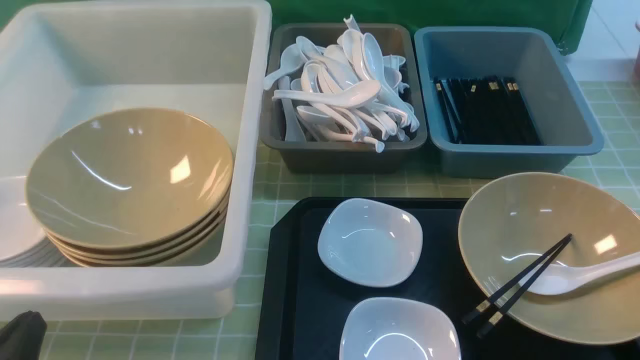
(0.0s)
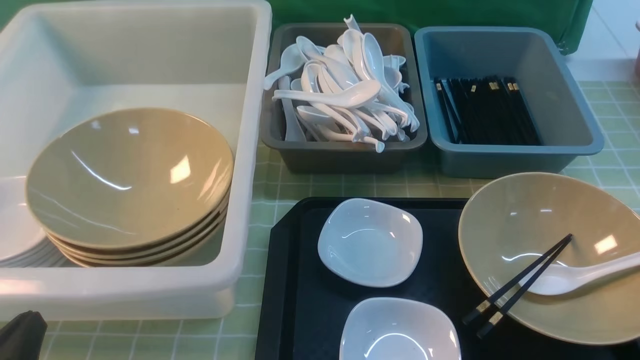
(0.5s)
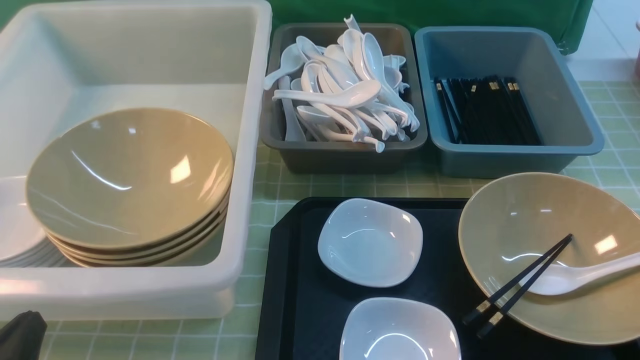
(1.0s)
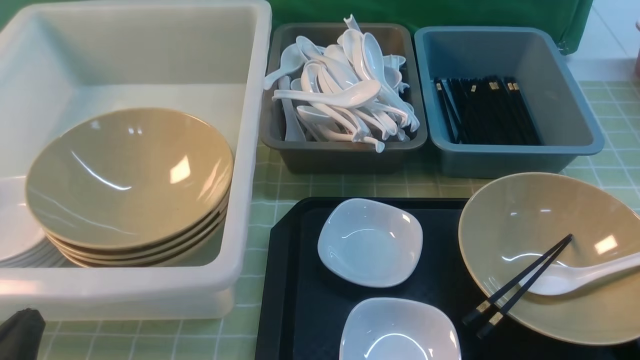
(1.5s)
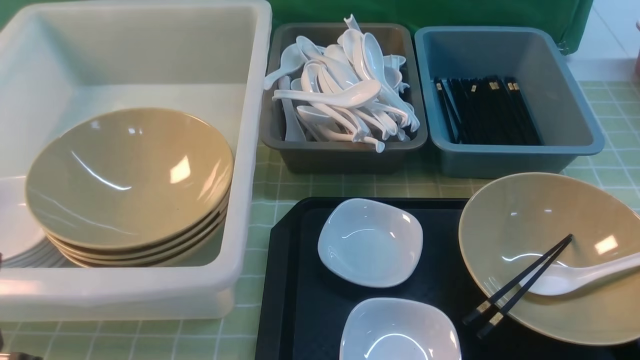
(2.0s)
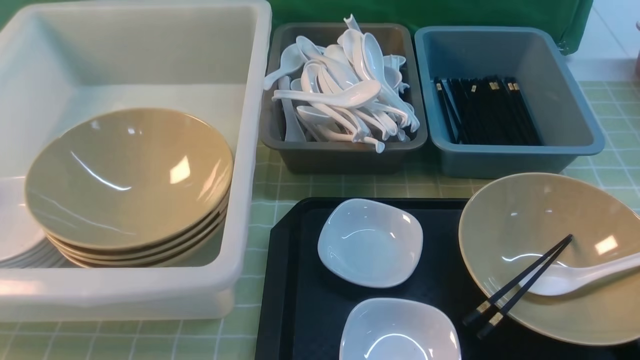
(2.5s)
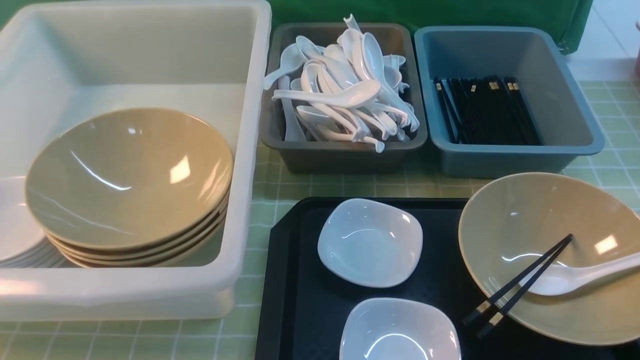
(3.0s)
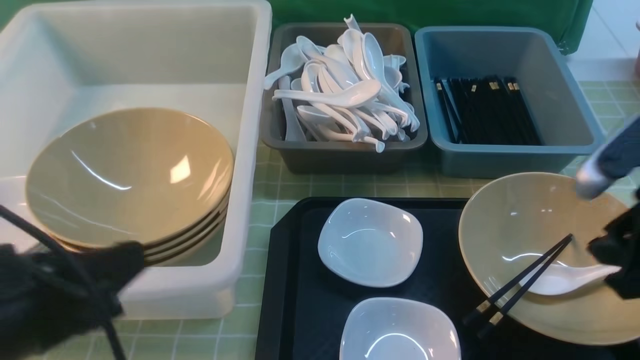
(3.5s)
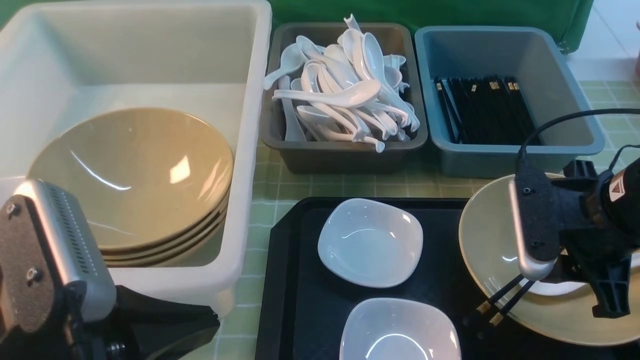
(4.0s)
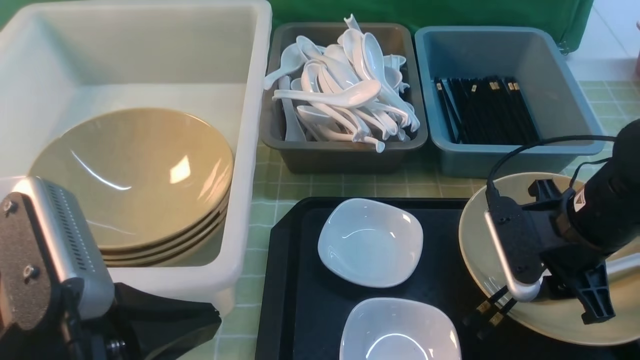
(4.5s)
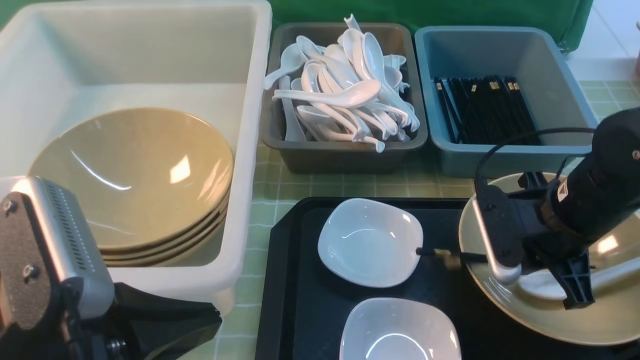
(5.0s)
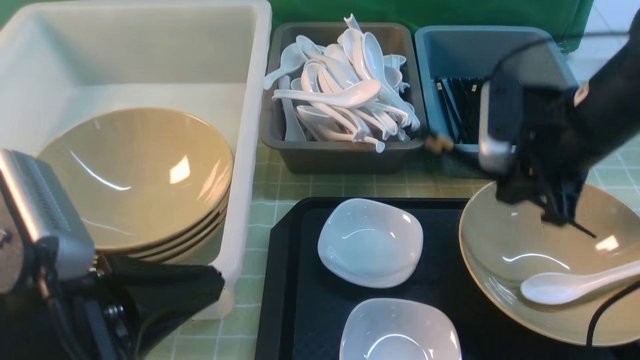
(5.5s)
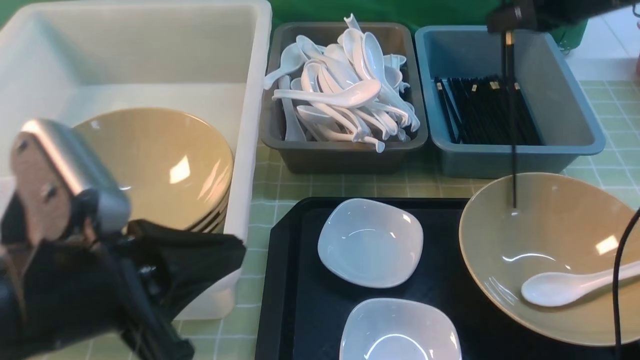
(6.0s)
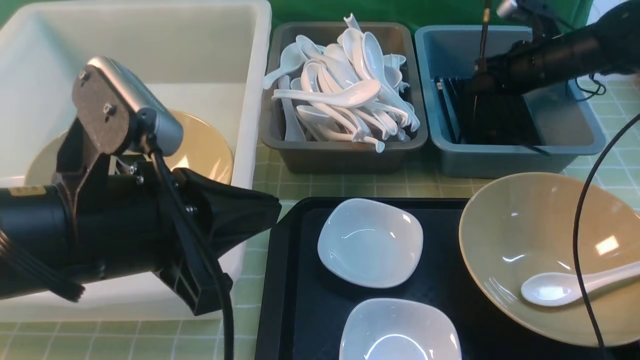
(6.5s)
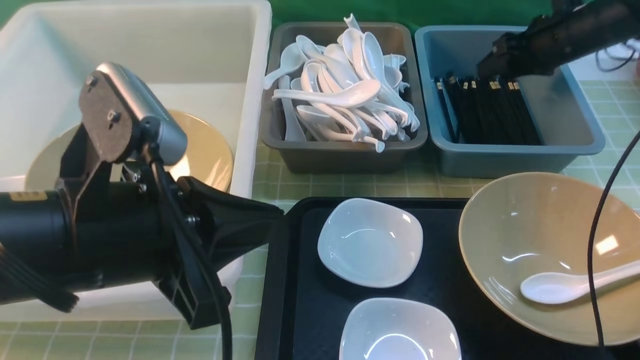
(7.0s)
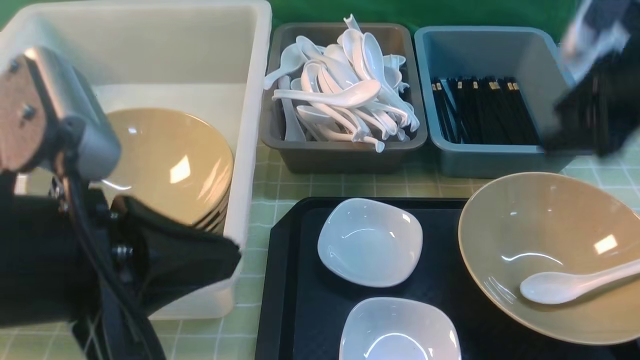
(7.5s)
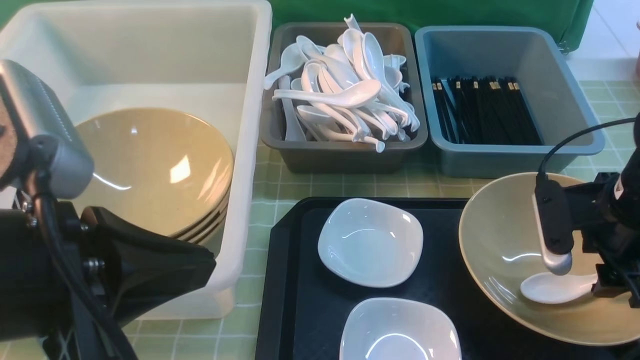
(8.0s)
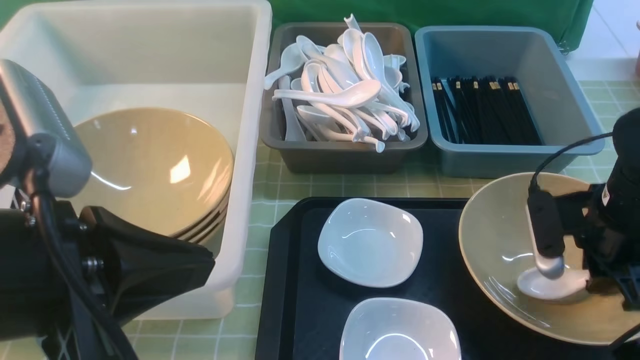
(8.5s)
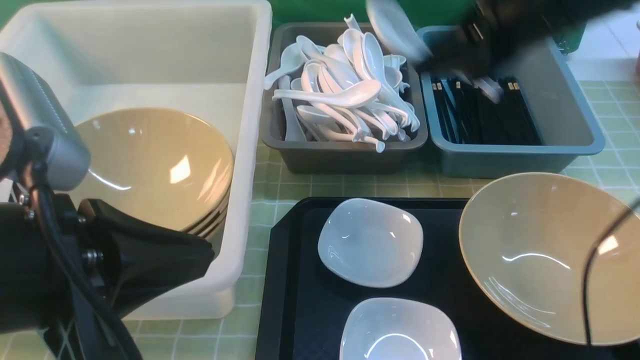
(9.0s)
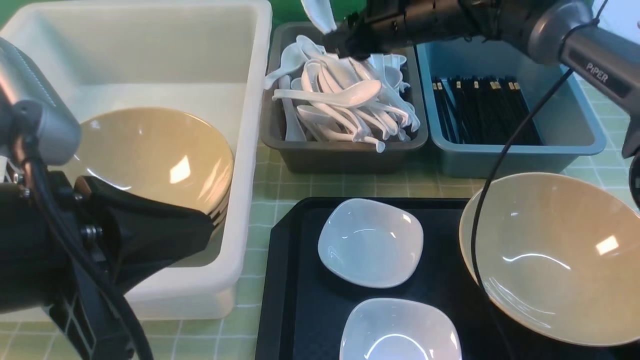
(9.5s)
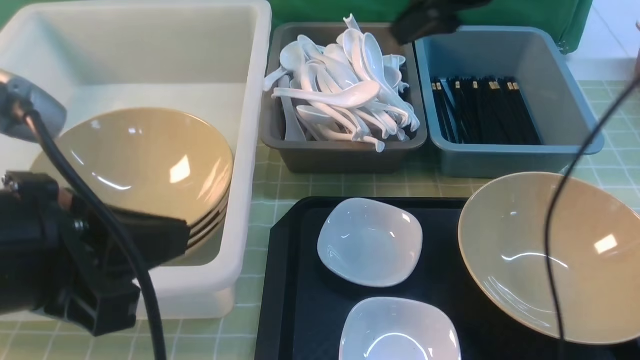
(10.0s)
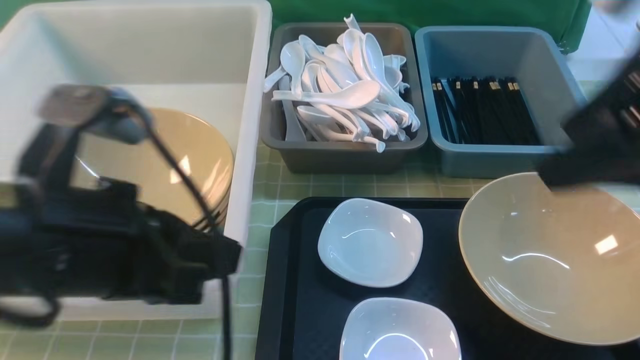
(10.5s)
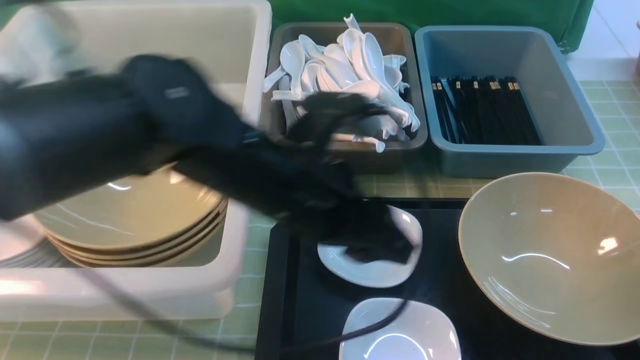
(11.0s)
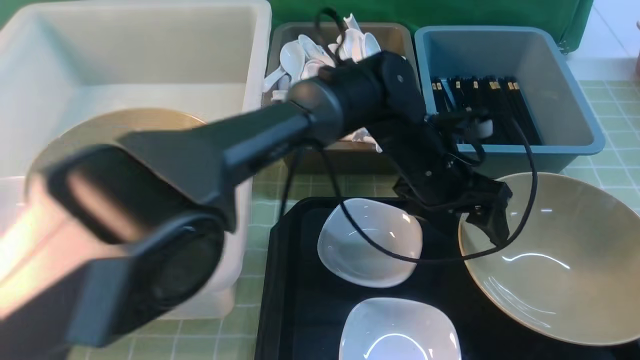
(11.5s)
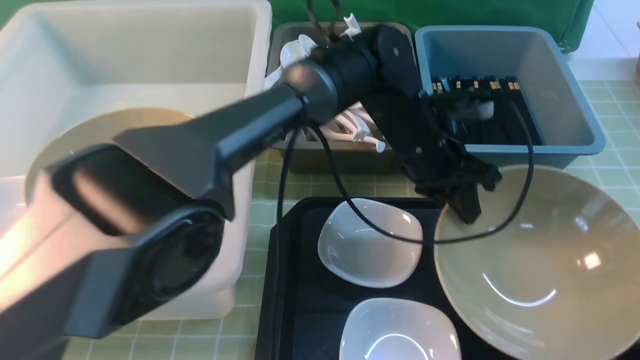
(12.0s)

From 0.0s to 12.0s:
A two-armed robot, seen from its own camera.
Task of the whole recording: on green table put chopsticks spoon bowls plates into blue grey white boxes.
Step, from 0.0s to 5.5s: use the right arm to grab the chopsticks.
Step, from 6.0s to 7.0s: use the right arm to put the chopsticks into the small storage box on the right.
Step, from 7.5s to 8.5s: use the right arm to grab the soup spoon in the middle.
Step, from 9.0s to 10.0s: use the right arm to put the soup spoon into the small storage box in the middle.
Step, from 10.5s to 12.0s: use the left arm to grab the yellow noodle bowl on the left.
From 2.0s to 4.0s: The left gripper goes approximately 10 cm to the right and upward. Meanwhile the right gripper goes about 20 cm forward and to the left.
From 4.0s to 6.0s: The right gripper shifts some 20 cm forward and upward, and closes.
From 6.0s to 8.0s: The left gripper ends up approximately 5 cm from where it was, while the right gripper heads backward and downward, covering roughly 20 cm, and opens.
From 8.0s to 10.0s: The right gripper heads upward, forward and to the left, covering some 25 cm, and closes, then opens again.
From 10.0s to 12.0s: The right gripper goes roughly 35 cm backward, and closes; the left gripper heads to the right, forward and downward, covering roughly 40 cm, and opens, then closes again.

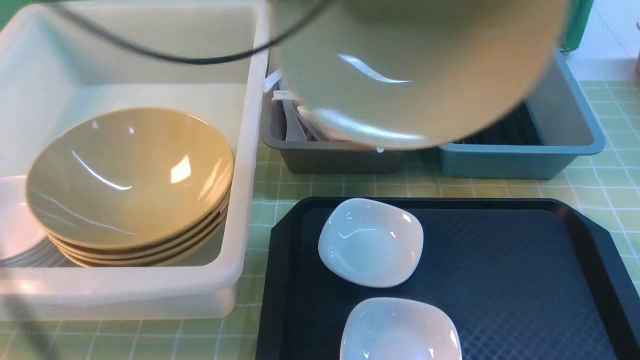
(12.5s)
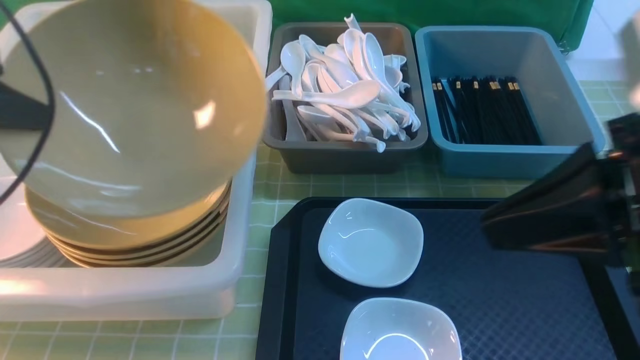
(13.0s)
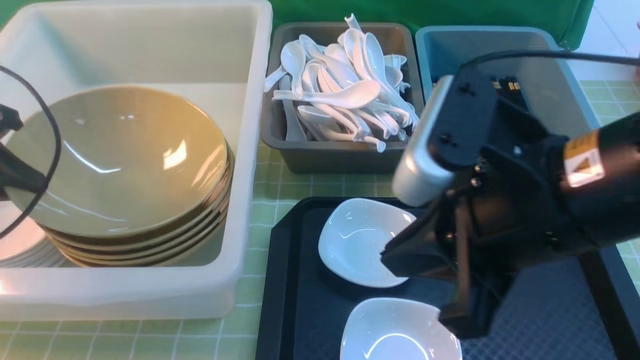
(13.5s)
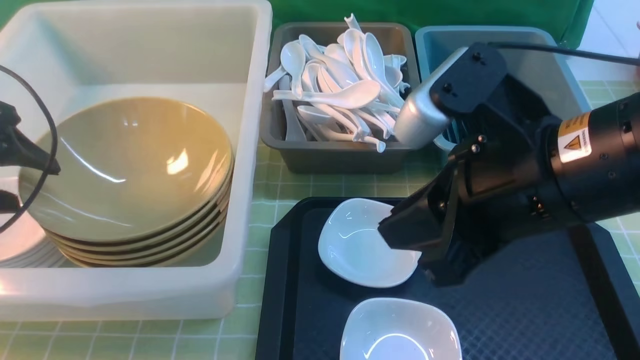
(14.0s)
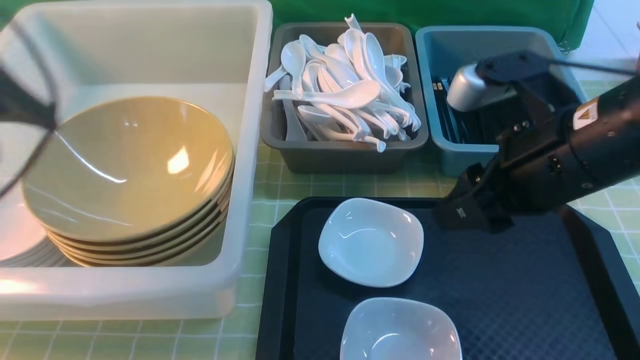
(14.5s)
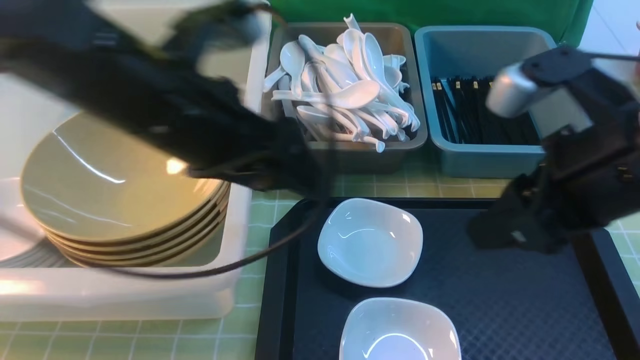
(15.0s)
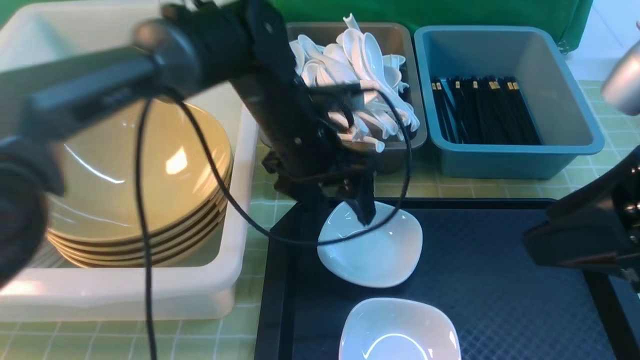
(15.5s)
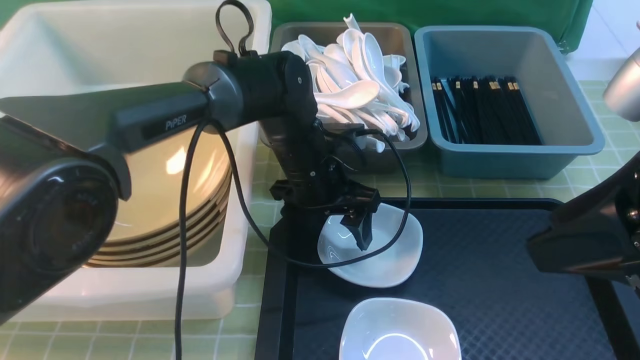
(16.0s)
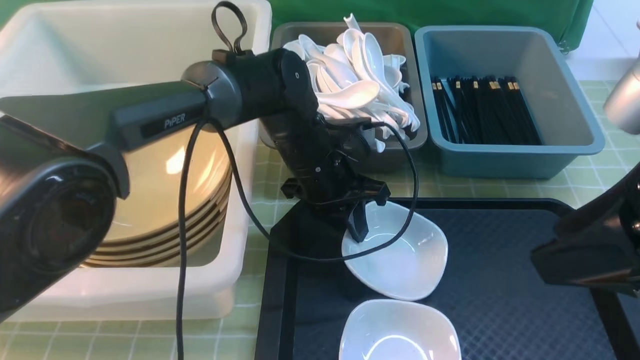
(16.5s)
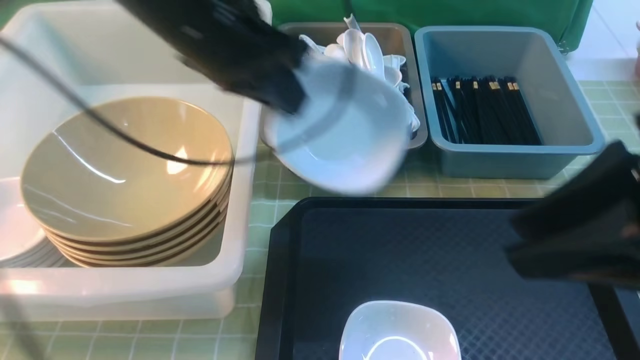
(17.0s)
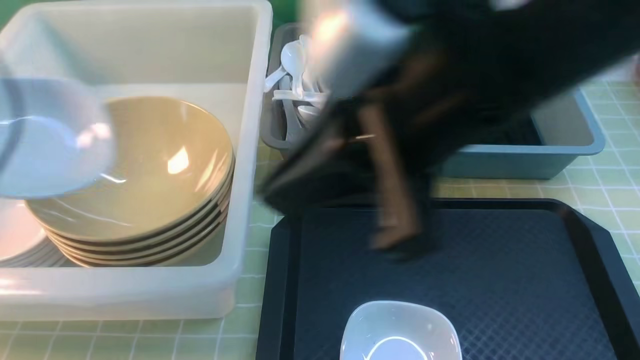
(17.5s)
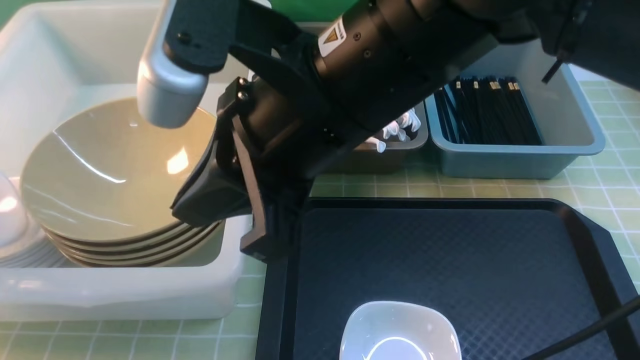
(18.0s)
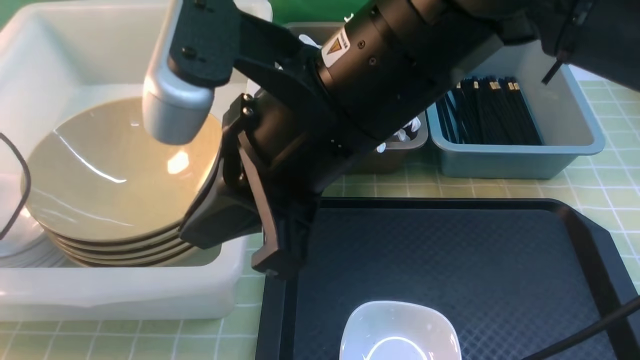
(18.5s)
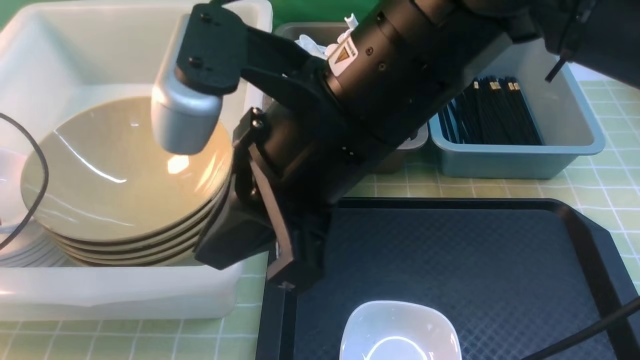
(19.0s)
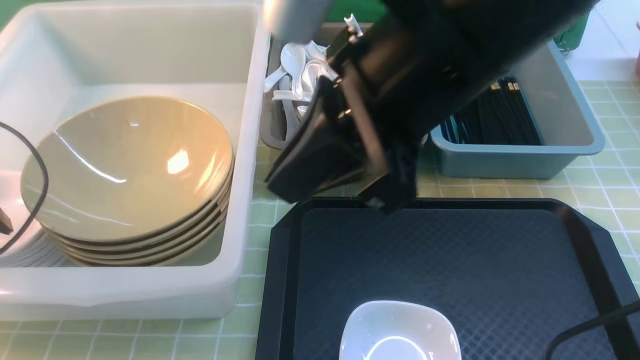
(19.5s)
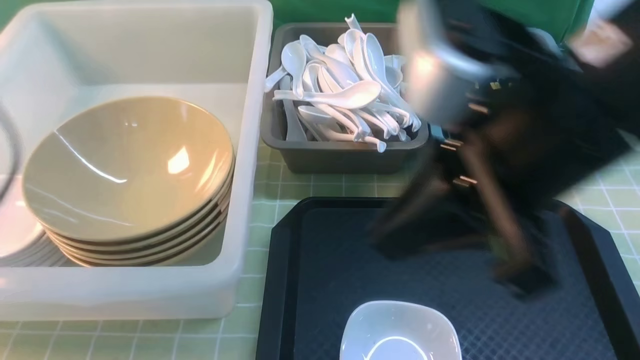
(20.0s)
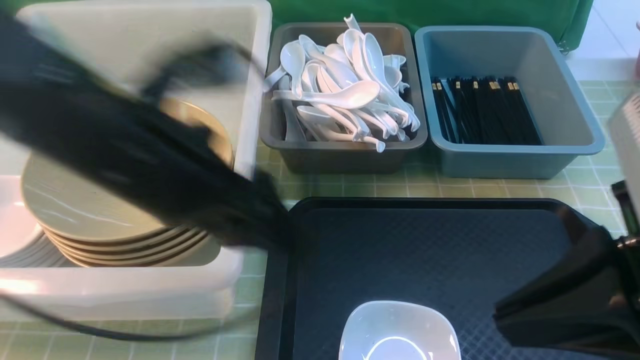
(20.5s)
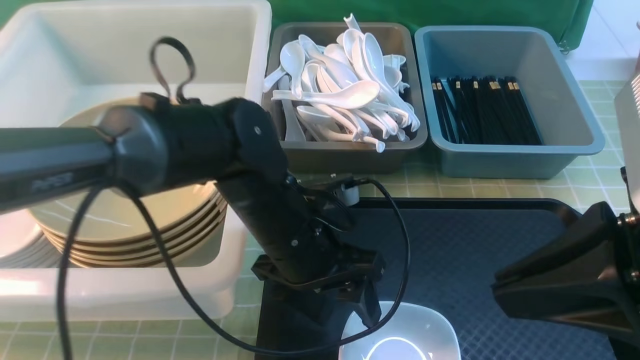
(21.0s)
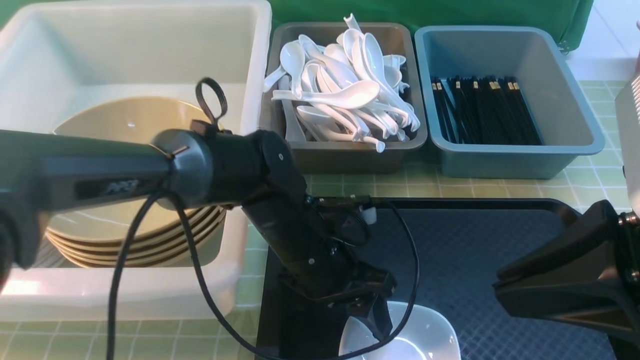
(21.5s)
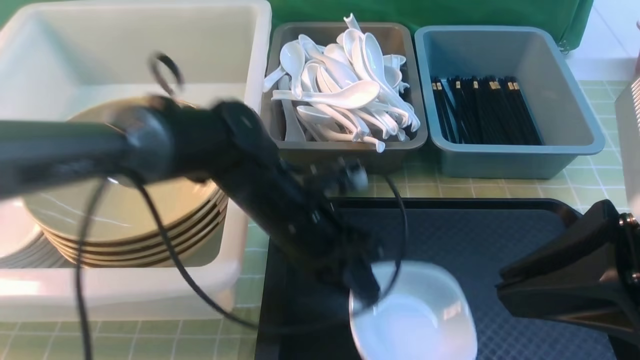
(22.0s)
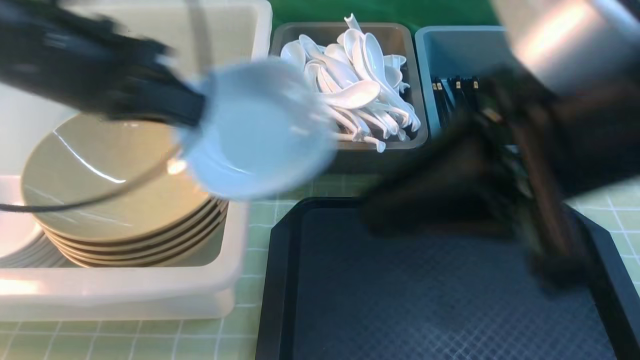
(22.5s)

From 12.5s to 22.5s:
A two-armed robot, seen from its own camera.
Task of the whole recording: on green table put chopsticks spoon bowls plates into blue grey white boxes.
Step, from 12.5s to 14.5s: use the left arm to put the noodle bowl into the large storage box on the left.
Step, from 15.0s to 16.5s: use the left arm to grab the plate.
Step, from 17.0s to 19.5s: use the left arm to put the plate into the large storage box on the left.
Step, from 20.0s to 22.0s: use the left arm to grab the plate.
From 12.5s to 14.5s: The left gripper is displaced to the left, backward and downward by approximately 20 cm, and opens. Meanwhile the right gripper shifts approximately 20 cm forward, downward and to the left, and opens its fingers.
From 14.5s to 16.5s: The right gripper is displaced backward and upward by some 10 cm, while the left gripper heads to the right, downward and forward, covering approximately 35 cm, and closes its fingers.
From 16.5s to 18.5s: The left gripper is displaced to the left by some 40 cm; the right gripper shifts some 20 cm to the left, and closes its fingers.
From 18.5s to 20.5s: The left gripper moves to the right, approximately 30 cm, and opens up, while the right gripper shifts approximately 20 cm to the right and backward.
From 20.5s to 22.5s: The left gripper heads to the left, covering roughly 10 cm, moves about 15 cm downward and comes back, and closes up. The right gripper shifts approximately 10 cm to the left and forward.
